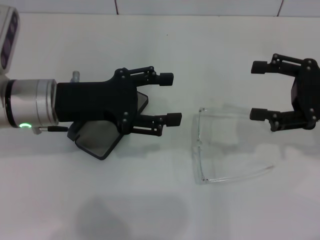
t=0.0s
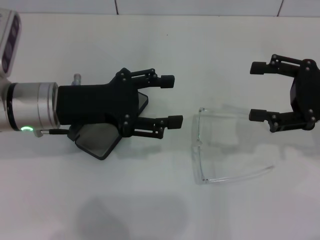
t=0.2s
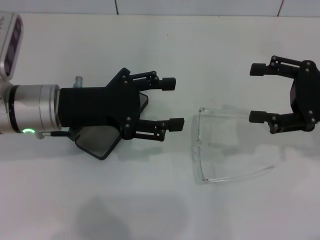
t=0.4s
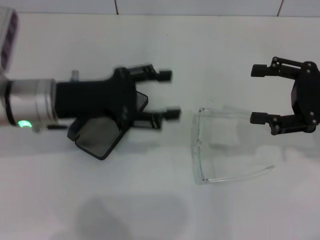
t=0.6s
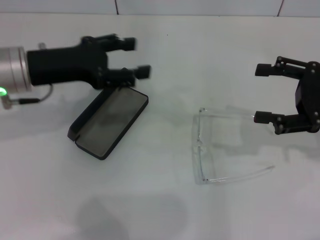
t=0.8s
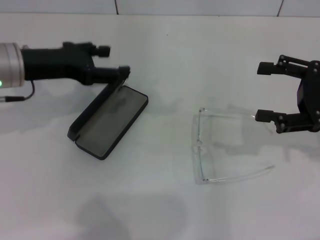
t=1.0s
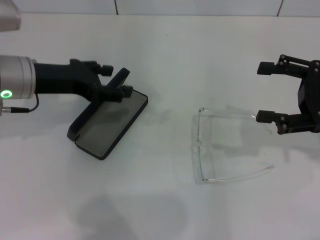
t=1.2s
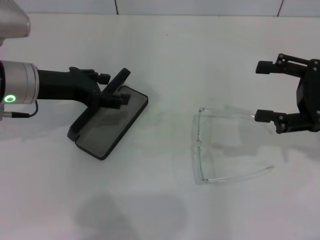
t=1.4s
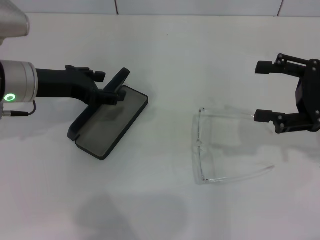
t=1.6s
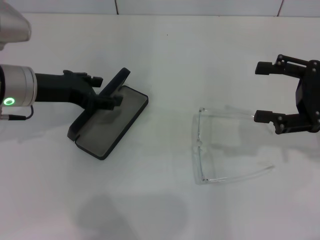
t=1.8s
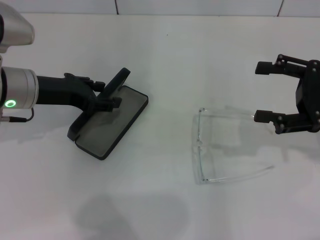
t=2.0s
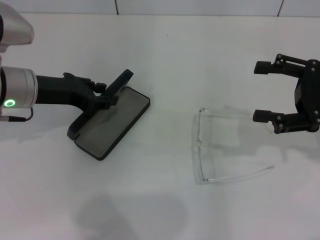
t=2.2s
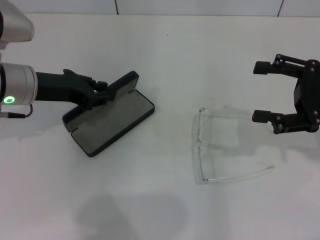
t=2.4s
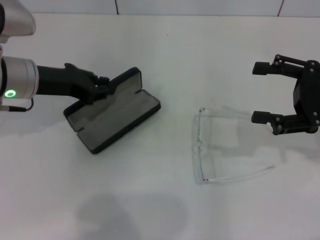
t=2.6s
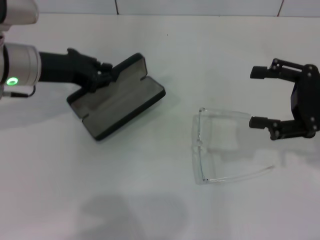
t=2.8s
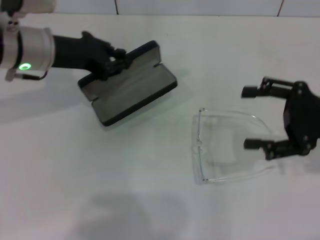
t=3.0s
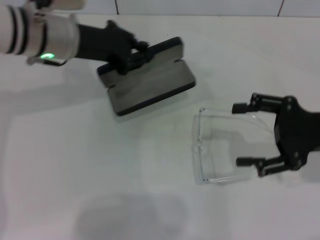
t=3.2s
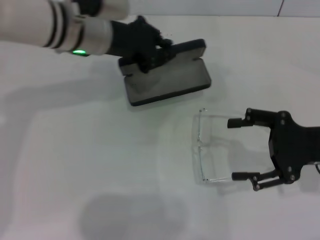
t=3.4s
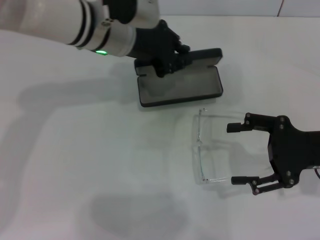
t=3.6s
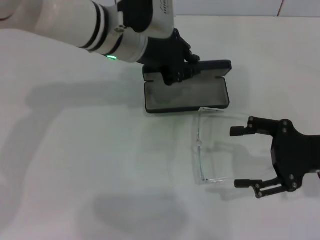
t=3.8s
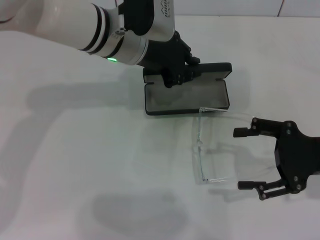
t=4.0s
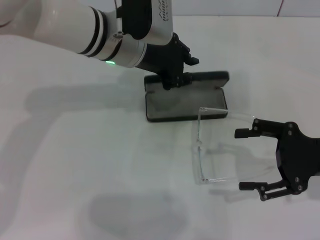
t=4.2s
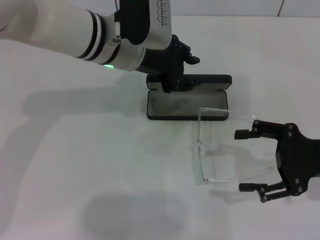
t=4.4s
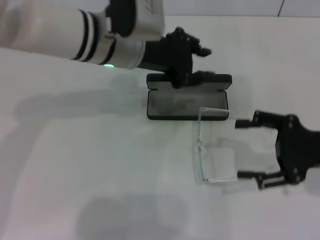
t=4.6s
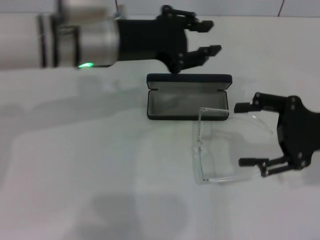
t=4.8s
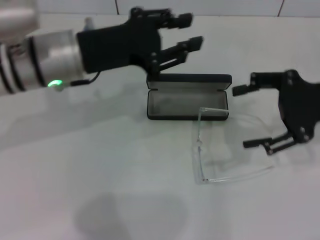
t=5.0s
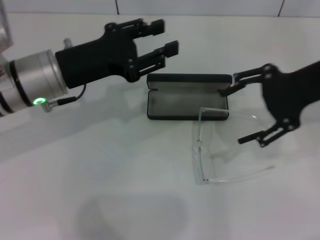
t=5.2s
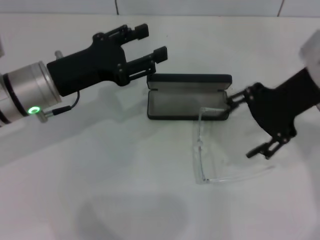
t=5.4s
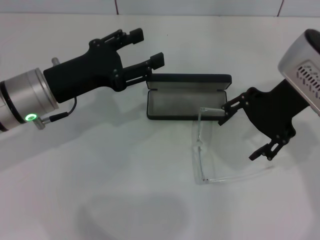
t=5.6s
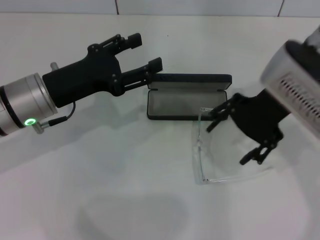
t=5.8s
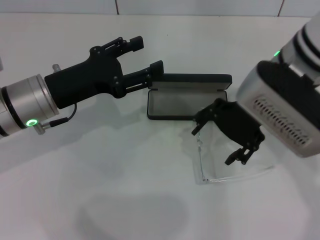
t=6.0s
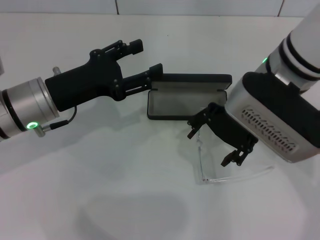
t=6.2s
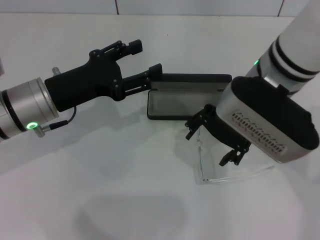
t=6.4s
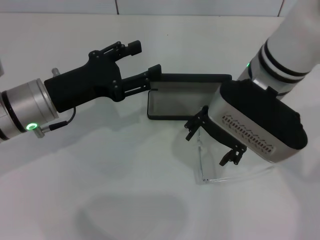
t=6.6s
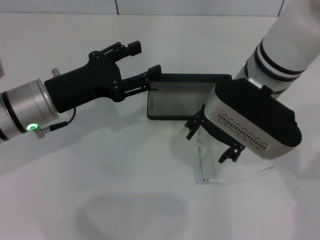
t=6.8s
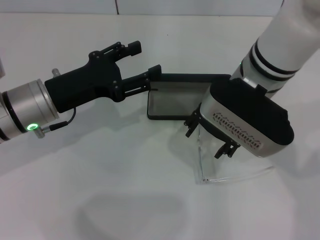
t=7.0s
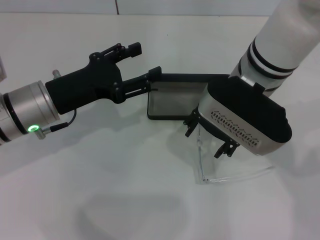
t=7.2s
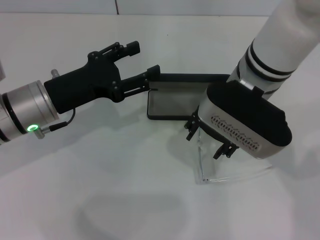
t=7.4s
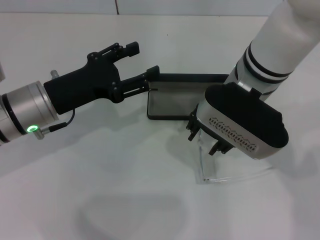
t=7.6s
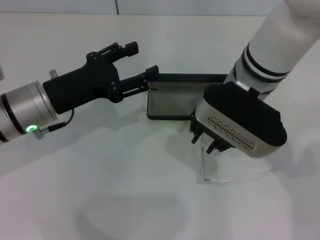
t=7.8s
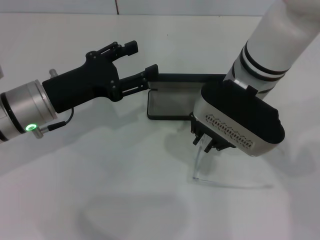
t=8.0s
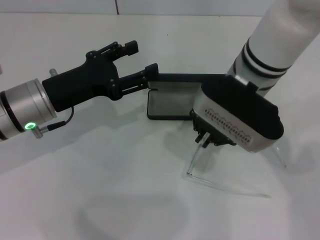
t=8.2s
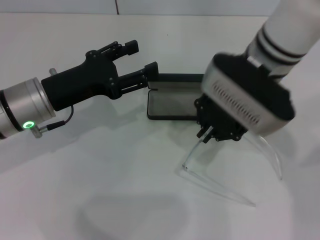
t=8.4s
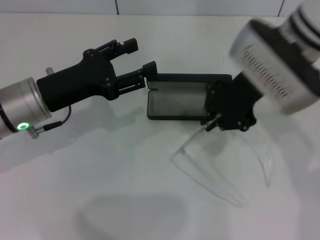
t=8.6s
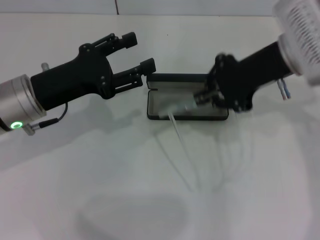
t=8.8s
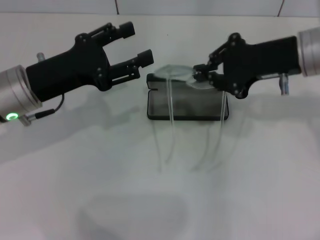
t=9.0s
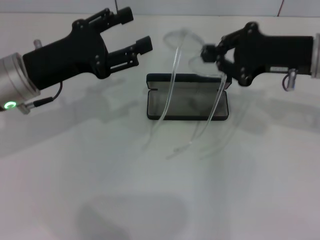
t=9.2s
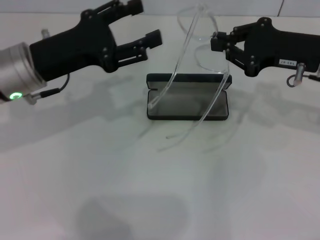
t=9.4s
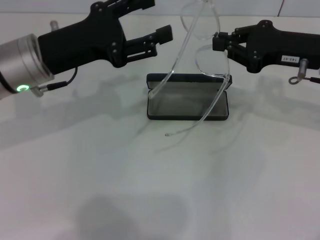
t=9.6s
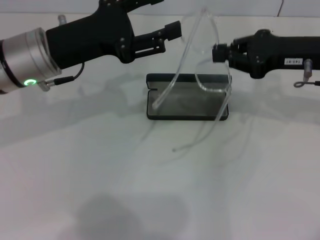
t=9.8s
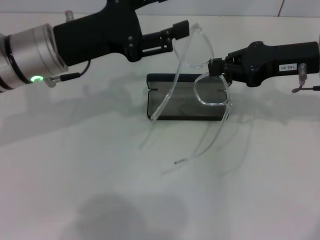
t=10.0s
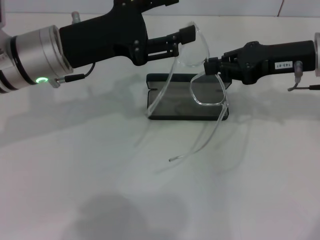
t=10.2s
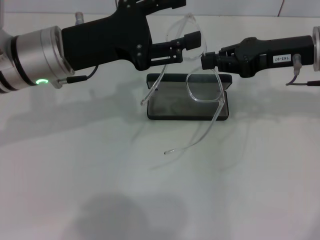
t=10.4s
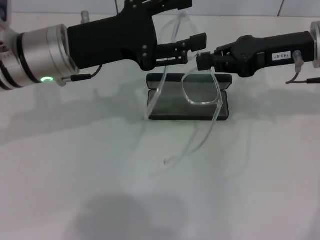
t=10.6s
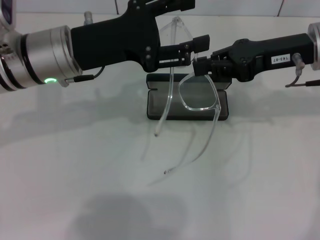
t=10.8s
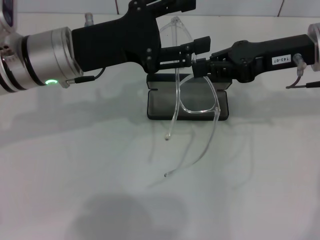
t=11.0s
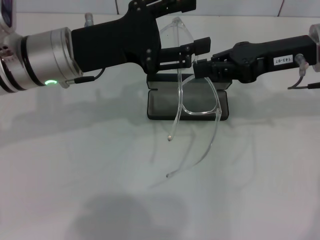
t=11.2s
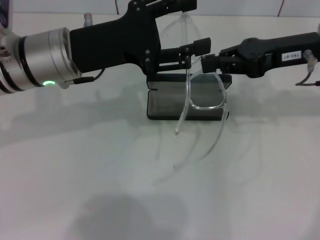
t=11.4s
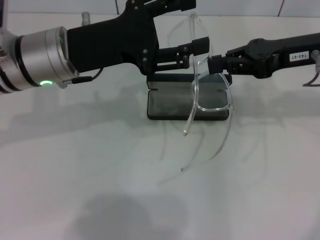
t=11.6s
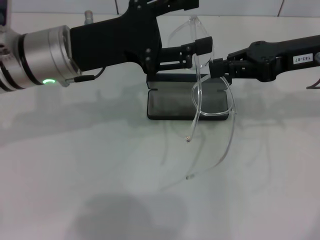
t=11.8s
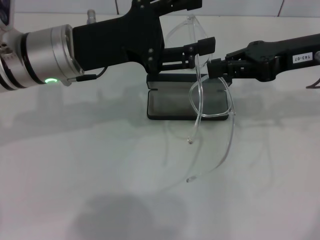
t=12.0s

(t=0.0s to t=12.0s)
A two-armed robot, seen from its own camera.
Step, t=0.0s - t=2.4s: Grab the glasses case with your left hand.
Step, t=2.8s - t=4.2s: Place the glasses case in the center of the table with your left hand.
Step, t=4.4s - t=8.0s: Grab the eyeglass frame with your right hand.
t=0.0s - t=1.6s: The left gripper moves approximately 5 cm.
t=1.6s - t=3.0s: The left gripper moves some 5 cm, and closes up.
t=3.0s - t=4.4s: The left gripper heads to the right, covering approximately 10 cm.
t=4.4s - t=6.0s: The right gripper moves to the left and upward, some 20 cm; the left gripper heads to the left, backward and downward, covering about 15 cm, and opens up.
t=6.0s - t=7.6s: The right gripper ends up roughly 5 cm from where it was.
t=7.6s - t=9.0s: The right gripper goes approximately 10 cm to the right, and closes its fingers.
t=9.0s - t=10.4s: The left gripper ends up about 5 cm from where it was.
t=10.4s - t=12.0s: The grippers move only a little.

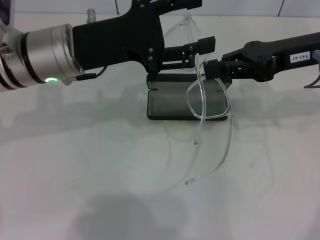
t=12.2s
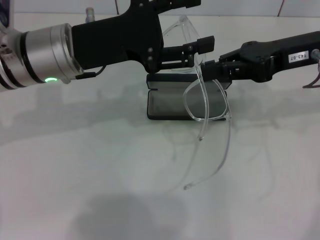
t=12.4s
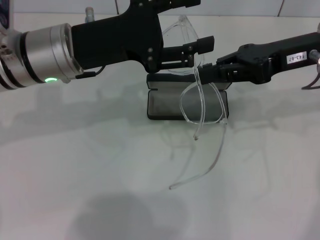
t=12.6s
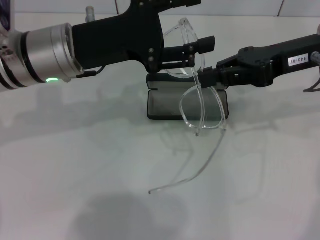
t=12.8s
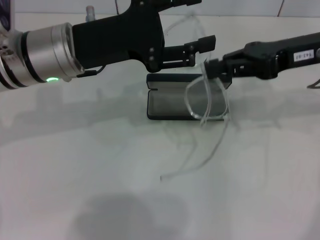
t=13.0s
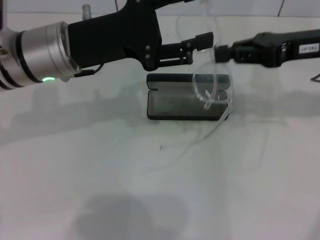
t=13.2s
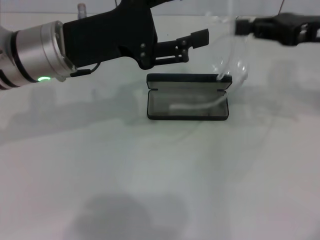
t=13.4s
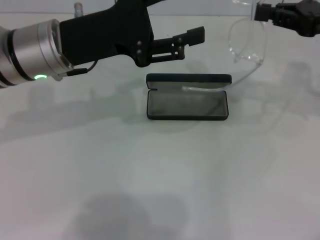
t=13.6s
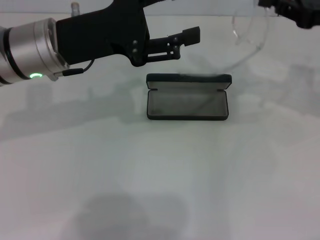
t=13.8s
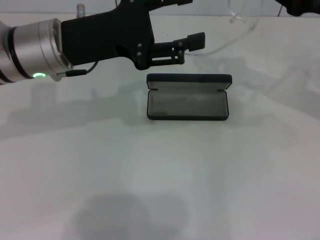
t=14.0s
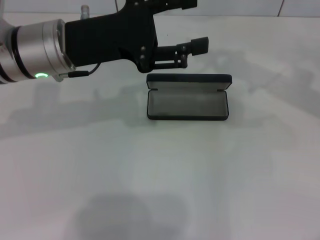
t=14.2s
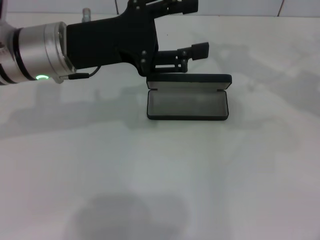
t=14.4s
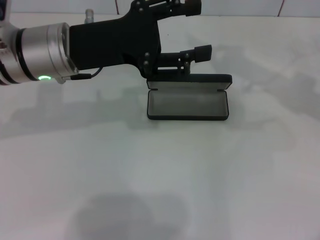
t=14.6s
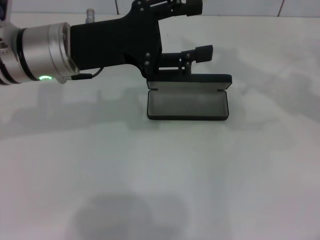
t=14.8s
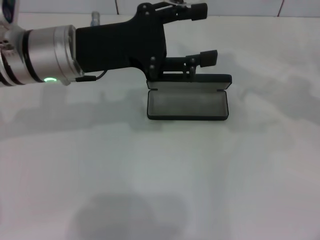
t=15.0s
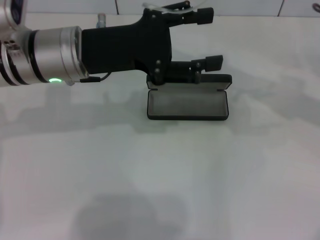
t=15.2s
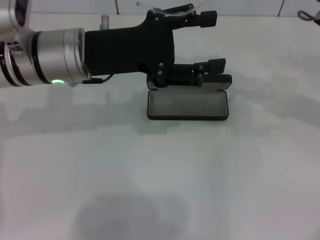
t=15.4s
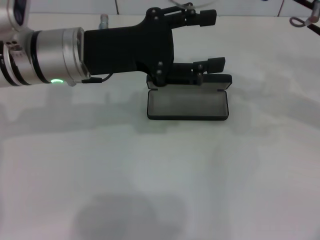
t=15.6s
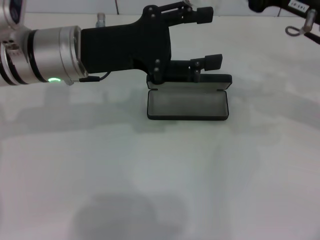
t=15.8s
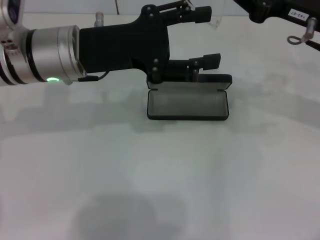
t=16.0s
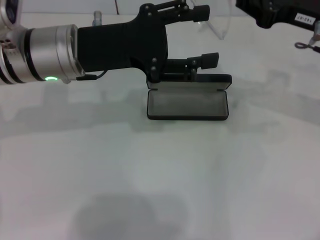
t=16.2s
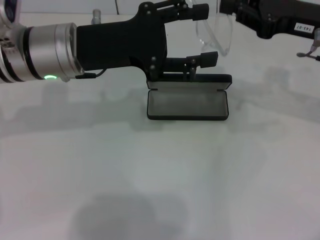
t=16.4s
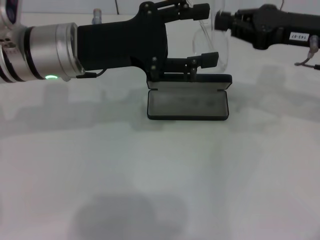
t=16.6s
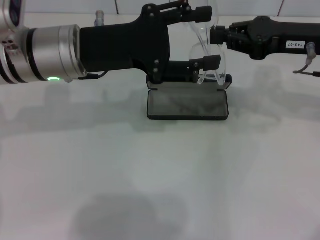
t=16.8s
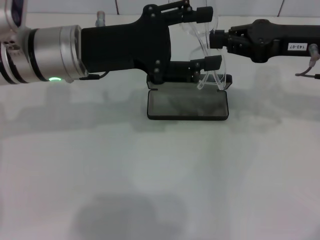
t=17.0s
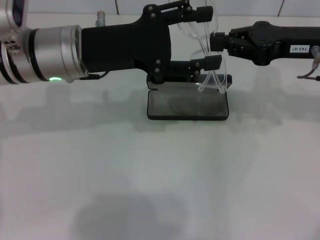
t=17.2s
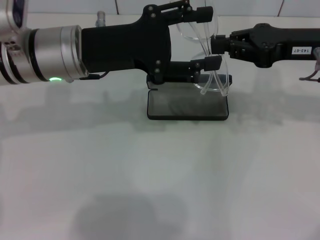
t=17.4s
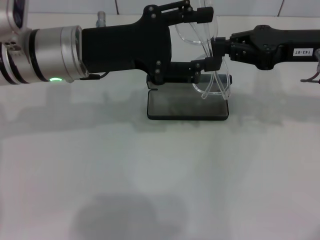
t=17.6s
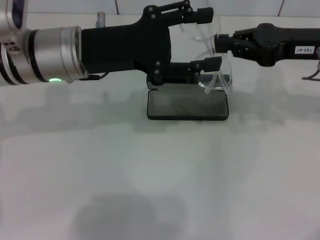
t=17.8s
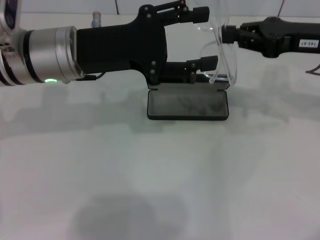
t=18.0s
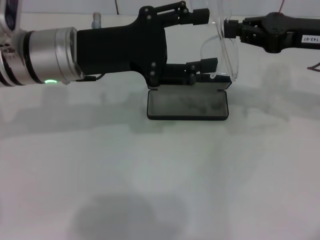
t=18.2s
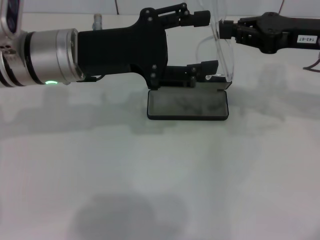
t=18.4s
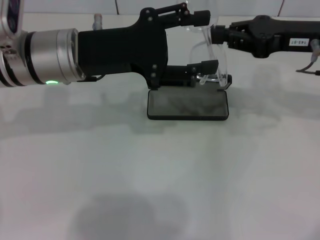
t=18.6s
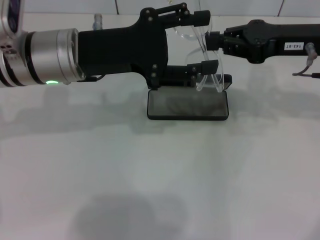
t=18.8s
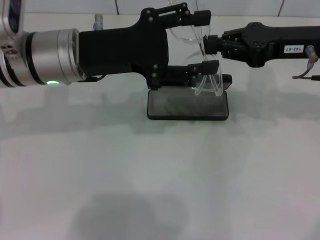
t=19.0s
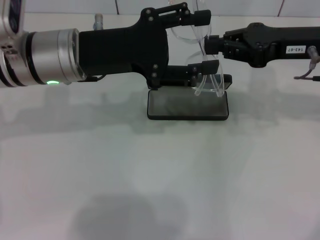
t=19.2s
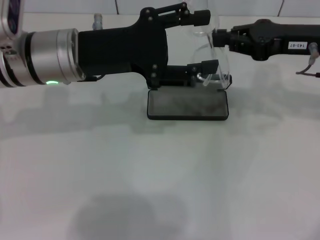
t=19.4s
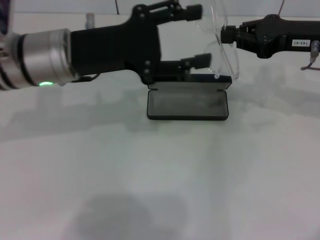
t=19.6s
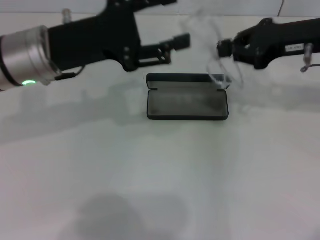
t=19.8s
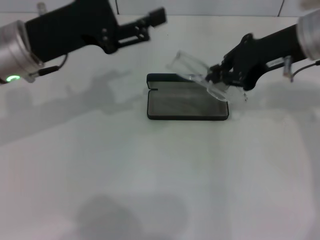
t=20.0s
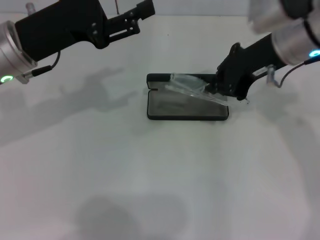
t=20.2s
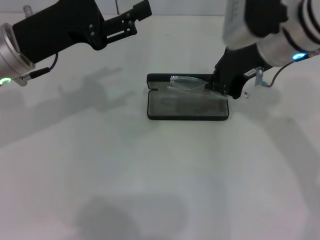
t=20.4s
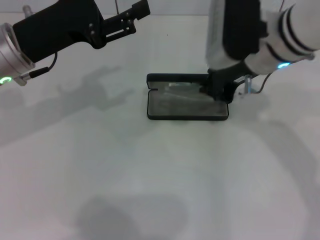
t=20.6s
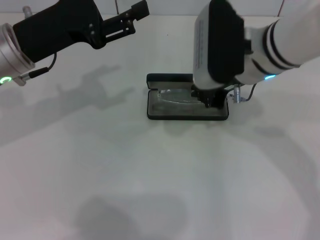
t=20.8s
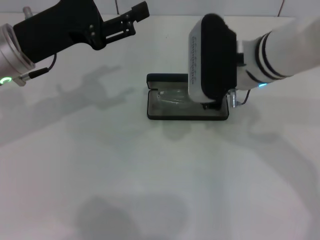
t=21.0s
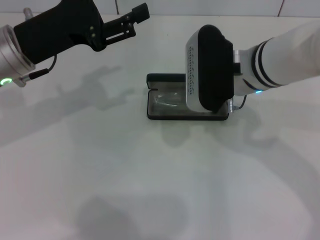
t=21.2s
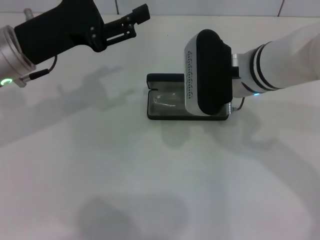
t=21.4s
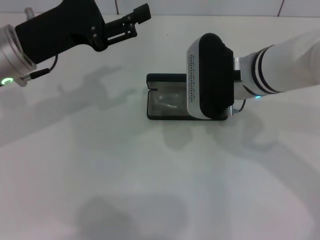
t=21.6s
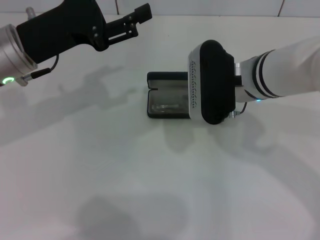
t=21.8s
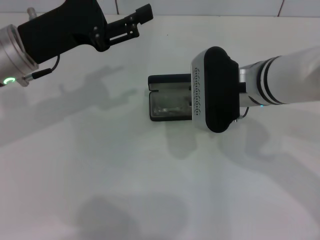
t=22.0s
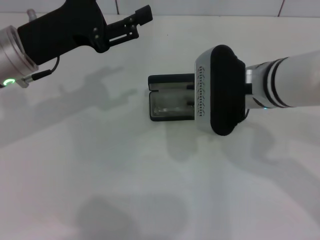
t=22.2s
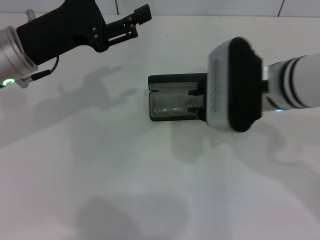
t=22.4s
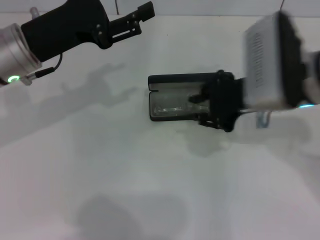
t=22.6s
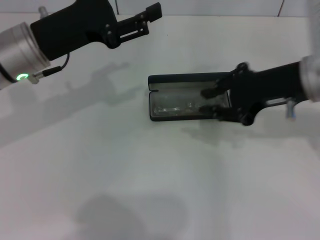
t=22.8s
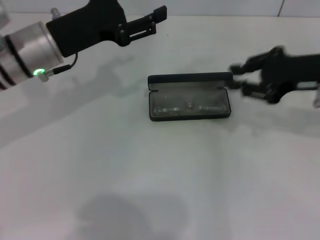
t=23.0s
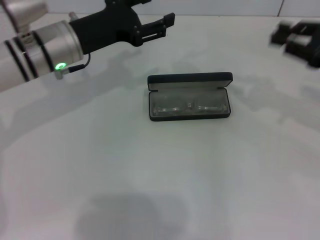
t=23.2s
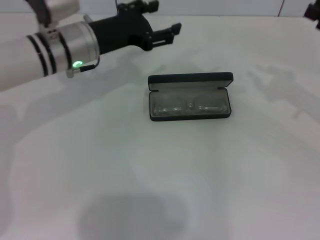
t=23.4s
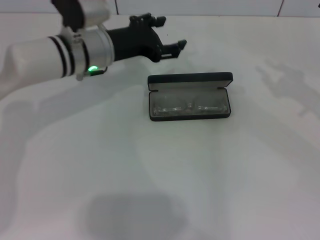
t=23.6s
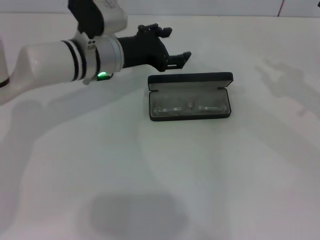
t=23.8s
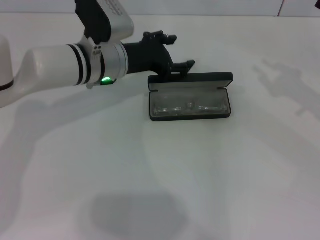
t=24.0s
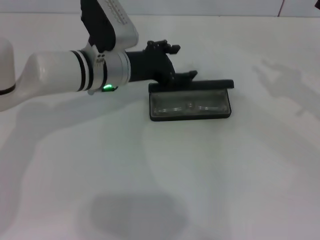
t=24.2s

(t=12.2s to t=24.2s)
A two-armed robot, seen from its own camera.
Step, t=12.2s - t=19.2s: Lift the glasses with your right hand.
Step, t=19.4s - t=22.0s: Put the glasses into the case with your right hand.
t=12.2s - t=13.8s: The right gripper shifts approximately 5 cm to the right.
t=16.6s - t=18.2s: The grippers make only small movements.
t=19.8s - t=21.2s: The right gripper travels to the left by roughly 15 cm.
t=21.2s - t=22.6s: The right gripper ends up about 5 cm from where it was.
t=22.6s - t=24.2s: The right gripper travels to the right by about 20 cm, while the left gripper goes about 15 cm to the right, downward and forward.
